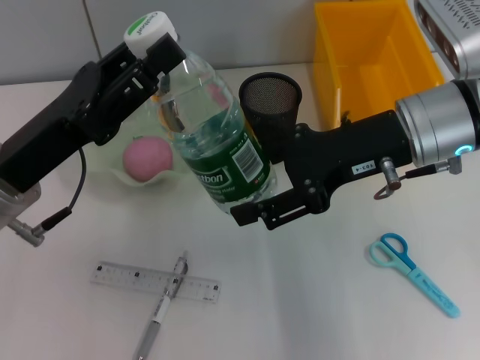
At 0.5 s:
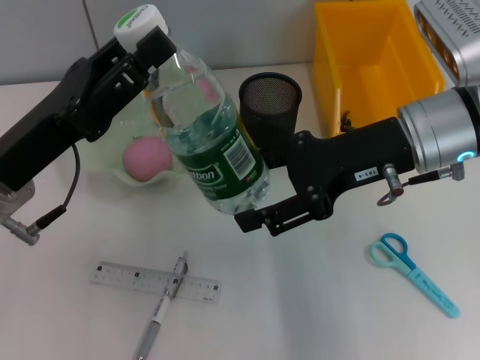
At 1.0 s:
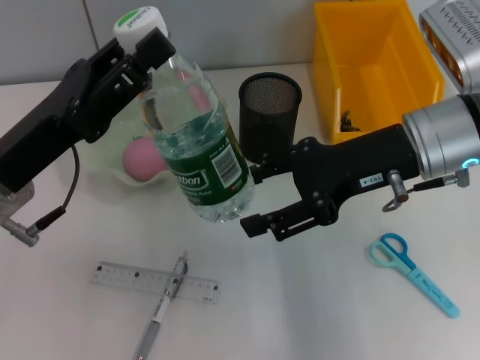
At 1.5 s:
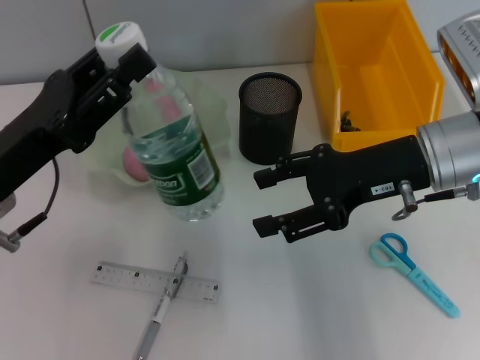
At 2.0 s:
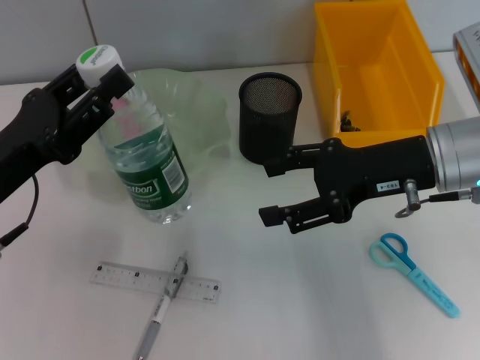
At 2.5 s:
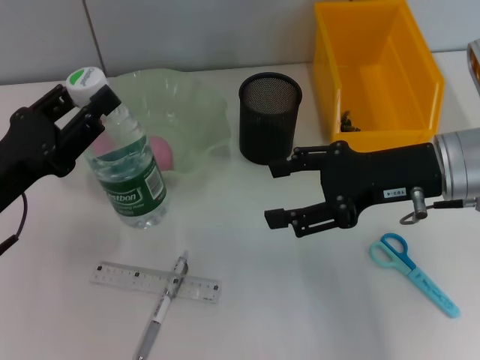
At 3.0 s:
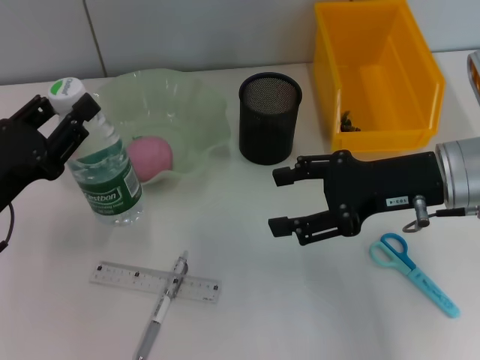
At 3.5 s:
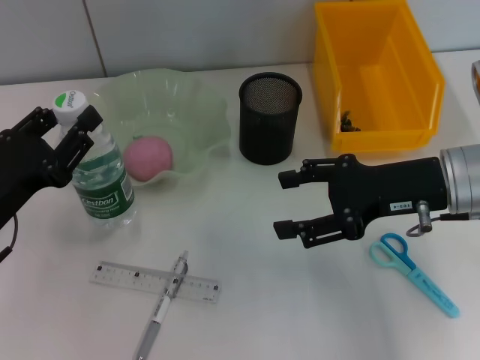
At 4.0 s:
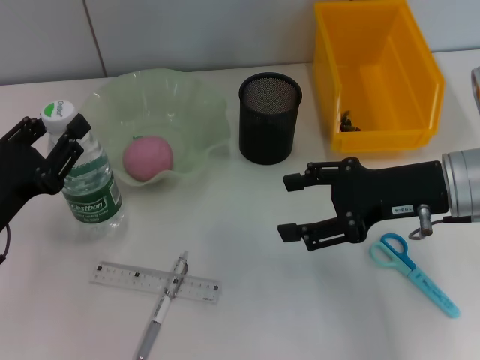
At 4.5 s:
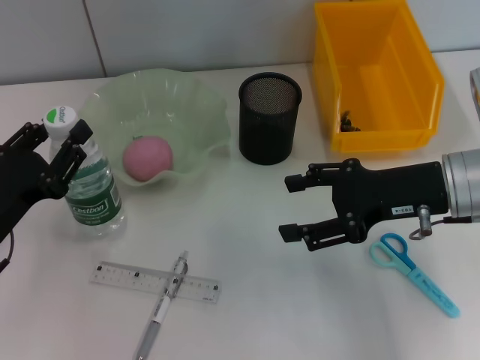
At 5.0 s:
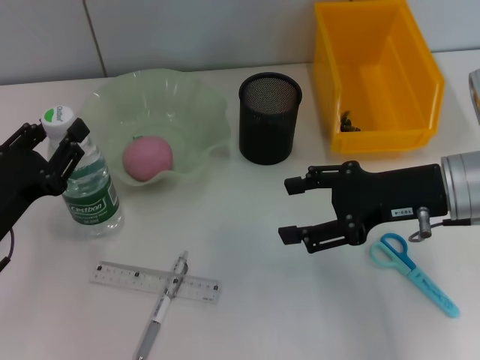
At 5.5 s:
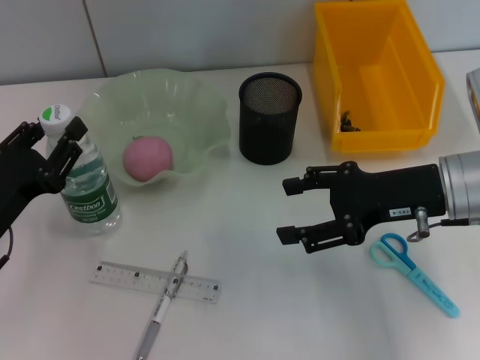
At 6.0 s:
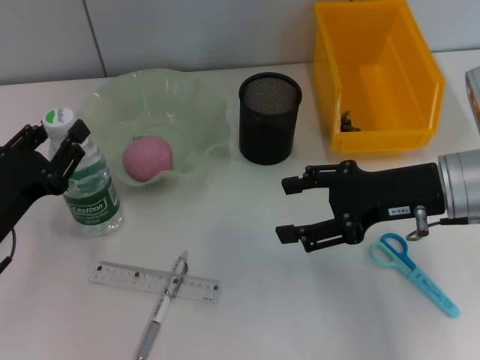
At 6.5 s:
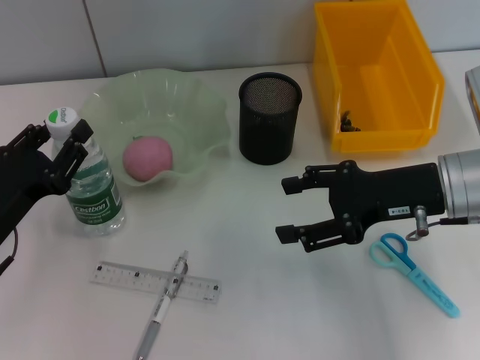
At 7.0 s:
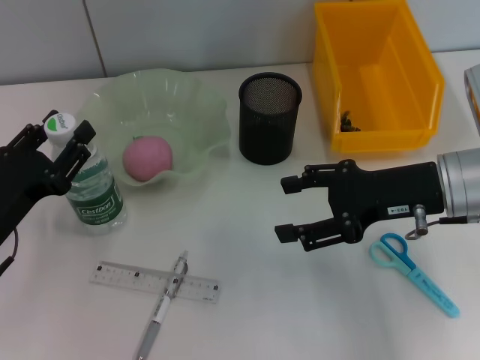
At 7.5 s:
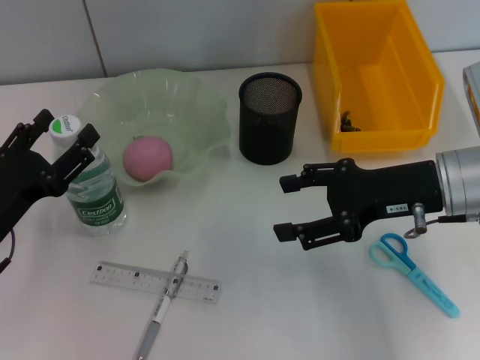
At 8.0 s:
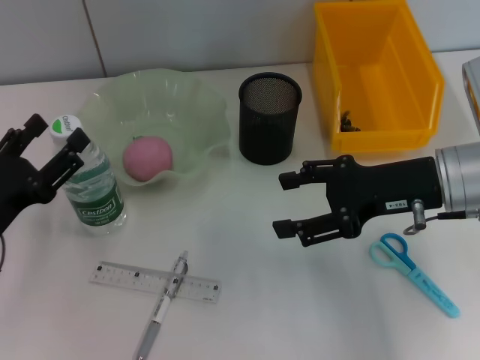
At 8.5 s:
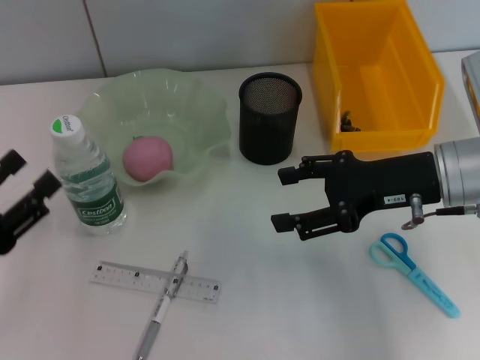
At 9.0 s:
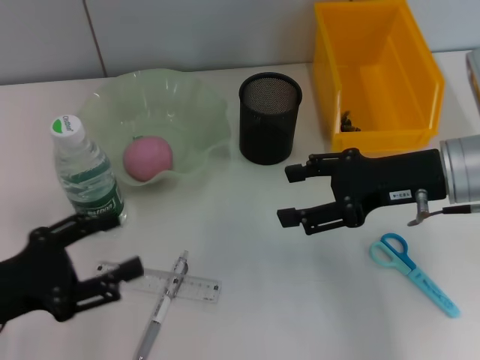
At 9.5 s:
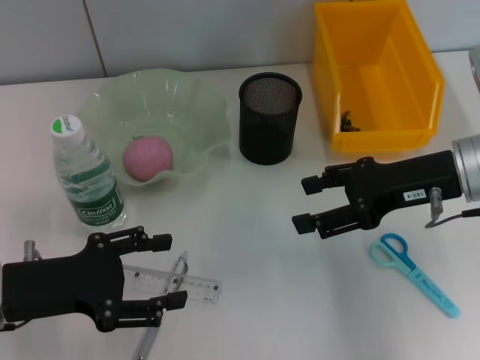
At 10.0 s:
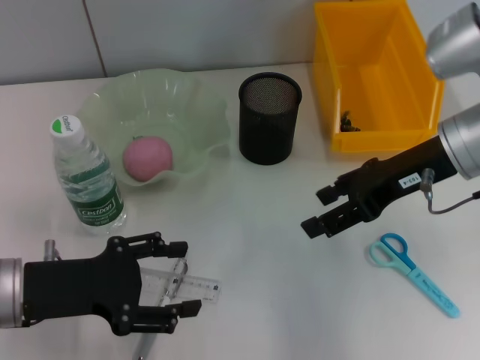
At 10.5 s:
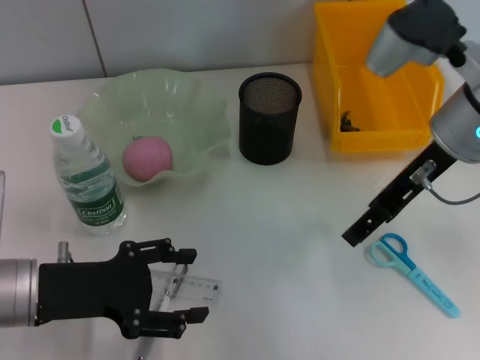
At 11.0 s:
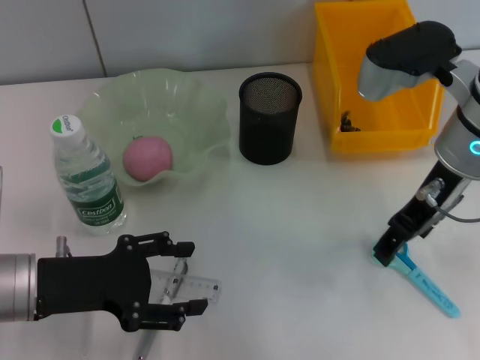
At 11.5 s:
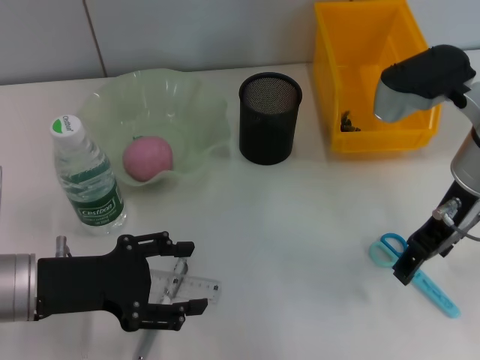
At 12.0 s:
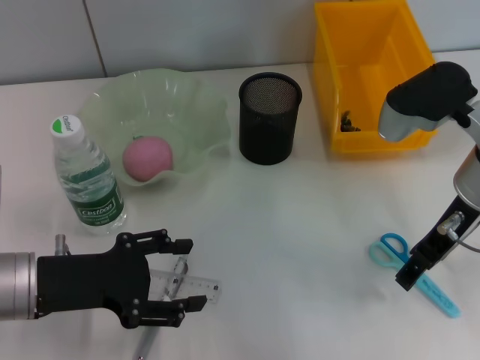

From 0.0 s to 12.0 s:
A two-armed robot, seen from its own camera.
Step, from 0.0 s to 7.0 s: Place the water bottle on the table with the left hand.
From 2.0 s to 4.0 s: The left gripper heads downward, covering some 5 cm.
From 4.0 s to 6.0 s: The grippers move only a little.
From 6.0 s to 8.0 s: The left gripper opens up.
From 8.0 s to 10.0 s: The right gripper changes place by about 5 cm.

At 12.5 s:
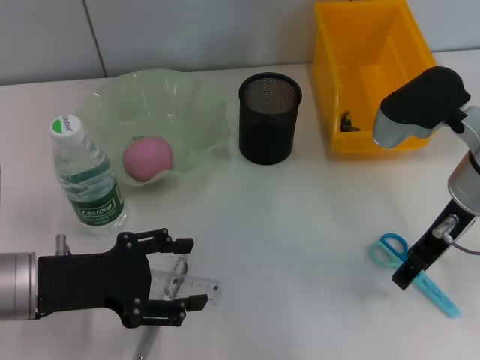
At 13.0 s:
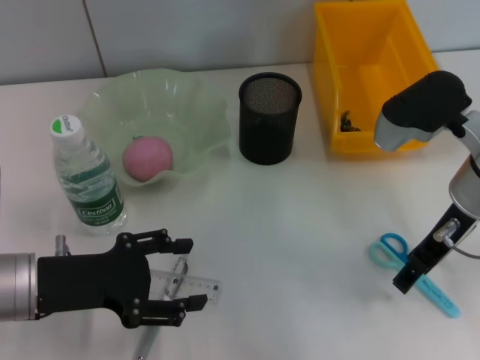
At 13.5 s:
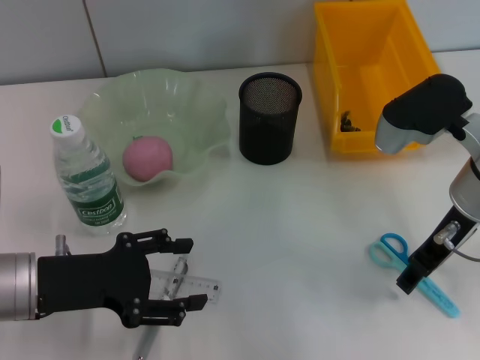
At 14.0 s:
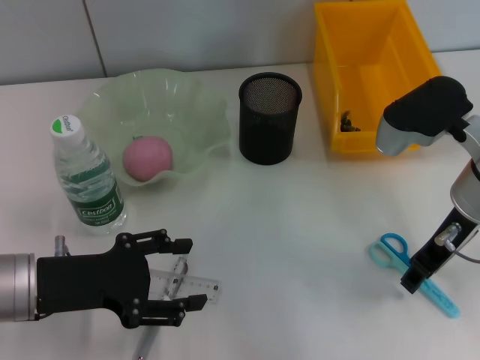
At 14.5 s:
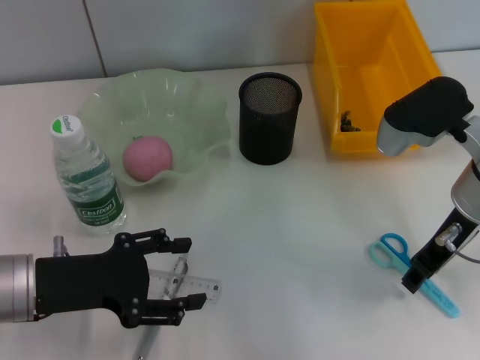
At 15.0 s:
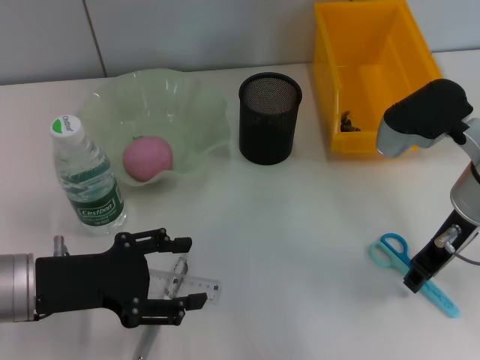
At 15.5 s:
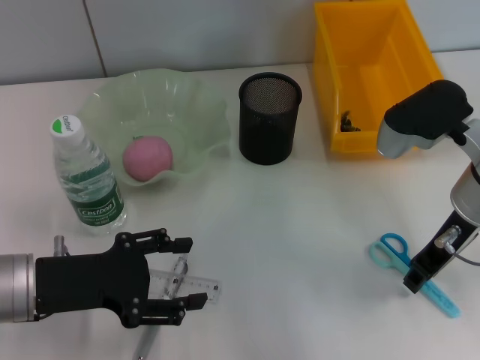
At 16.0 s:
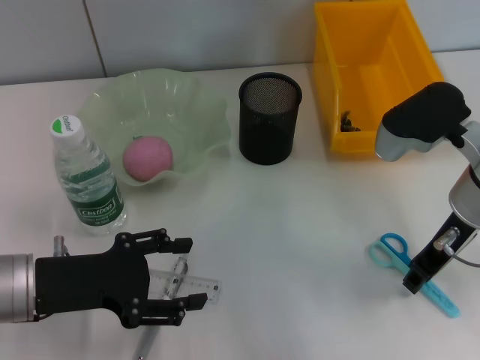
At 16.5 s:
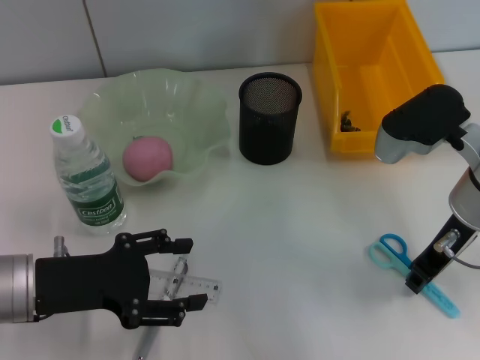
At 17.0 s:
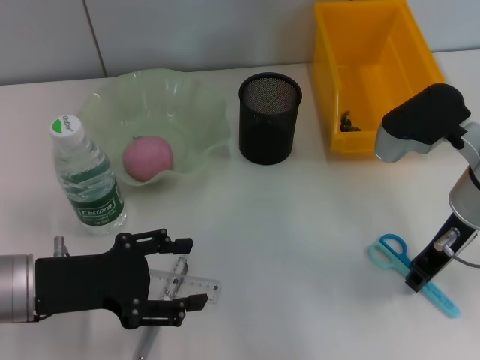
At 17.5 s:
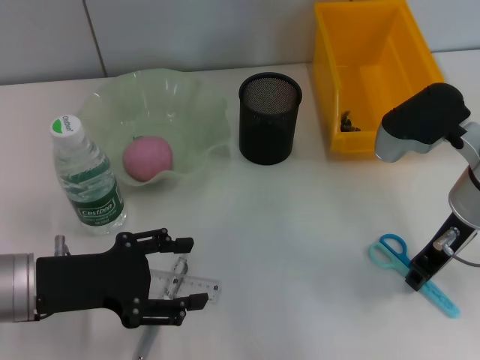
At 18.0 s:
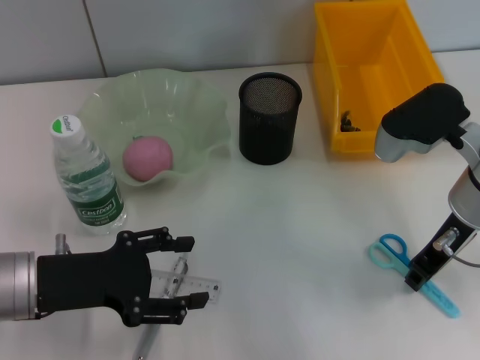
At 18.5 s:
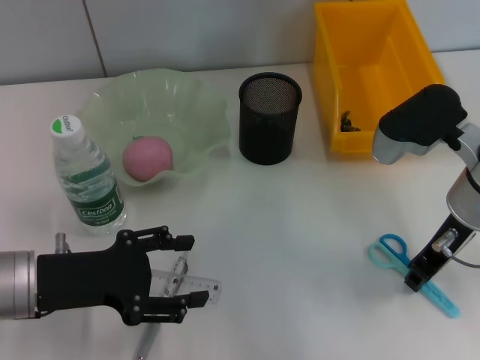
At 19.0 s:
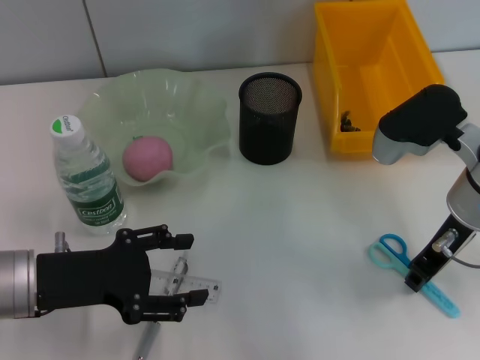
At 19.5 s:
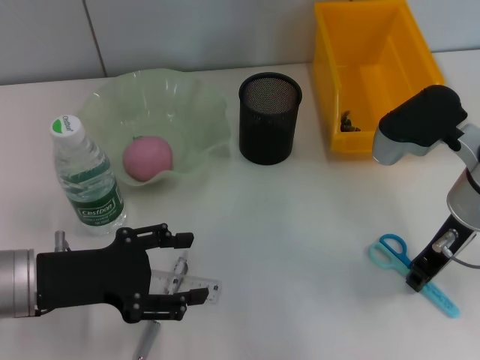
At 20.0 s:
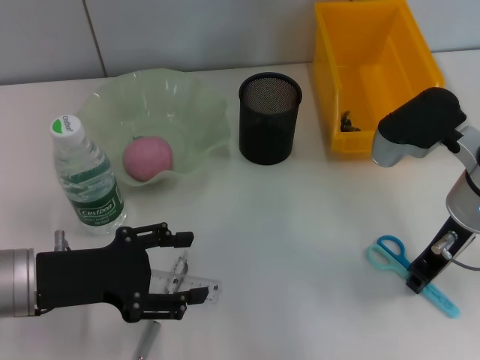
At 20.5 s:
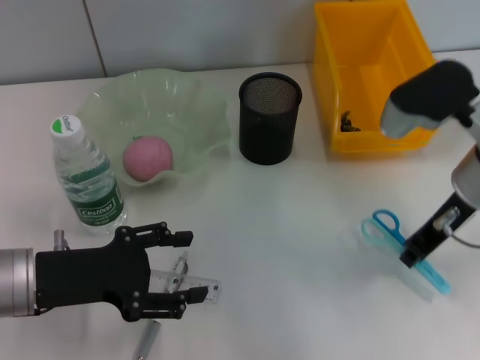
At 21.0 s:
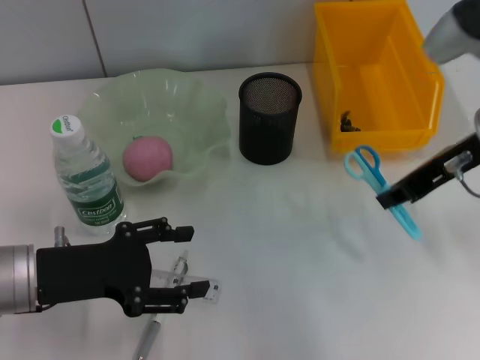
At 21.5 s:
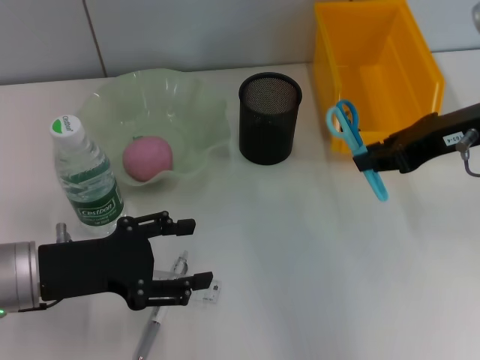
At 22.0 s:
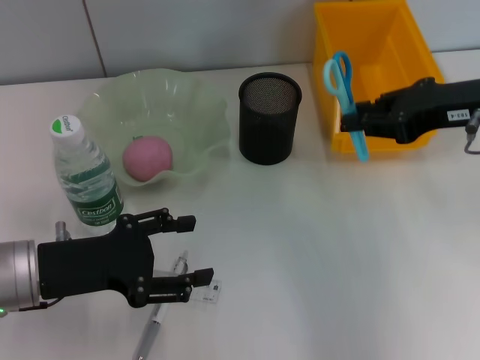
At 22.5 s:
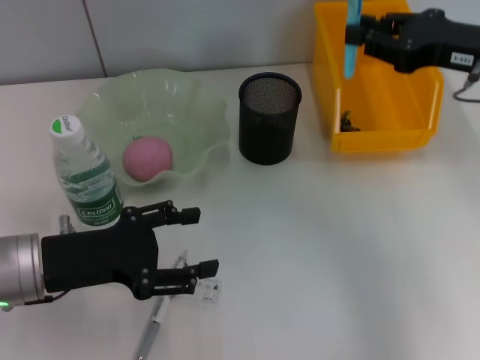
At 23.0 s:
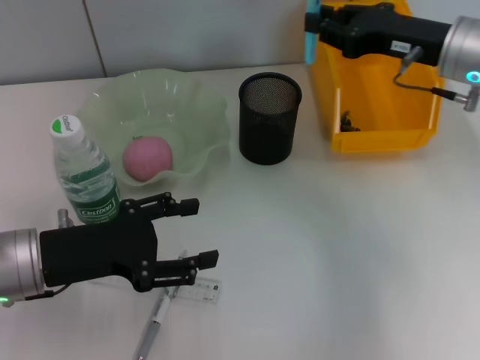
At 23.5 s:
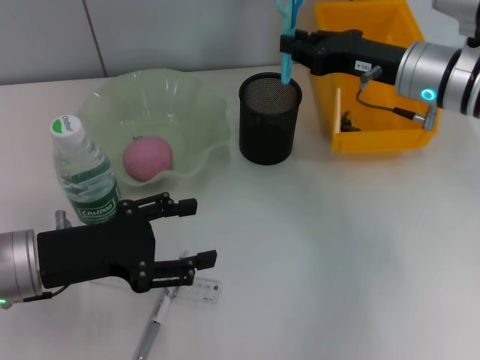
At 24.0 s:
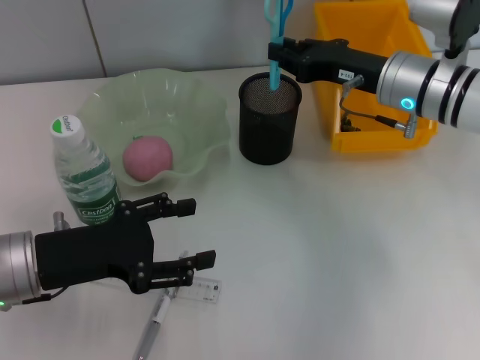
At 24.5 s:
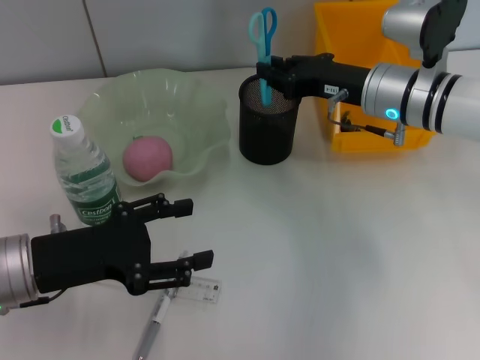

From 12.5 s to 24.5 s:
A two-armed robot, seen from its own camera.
Step, from 12.5 s to 20.0 s: Grab the blue scissors with the right hand.
From 12.5 s to 14.5 s: The right gripper closes up.
From 14.5 s to 18.5 s: The two grippers keep their place.
From 18.5 s to 20.5 s: The grippers stay close to where they were, moving slightly.
From 20.5 s to 22.5 s: The right gripper moves to the right, some 5 cm.
From 22.5 s to 24.5 s: The right gripper goes roughly 15 cm to the left, downward and forward.

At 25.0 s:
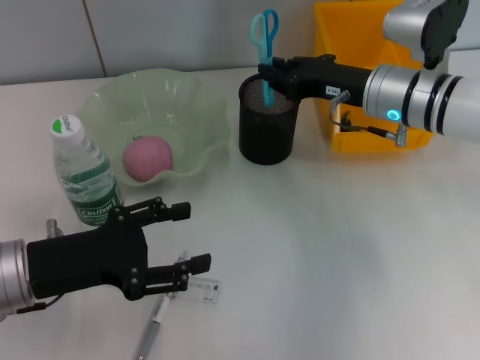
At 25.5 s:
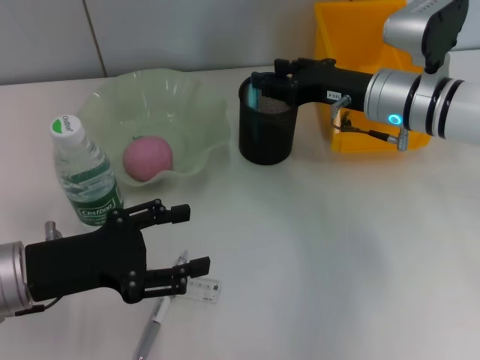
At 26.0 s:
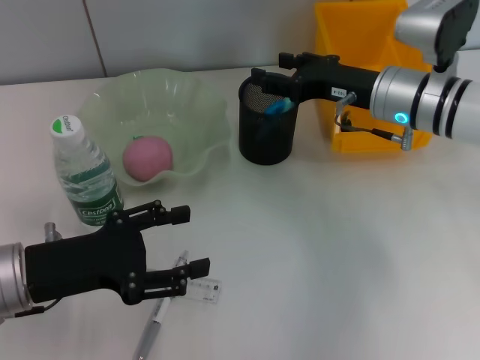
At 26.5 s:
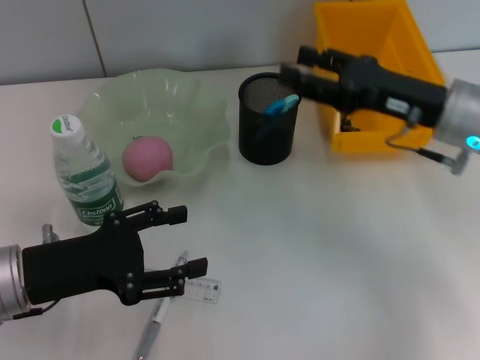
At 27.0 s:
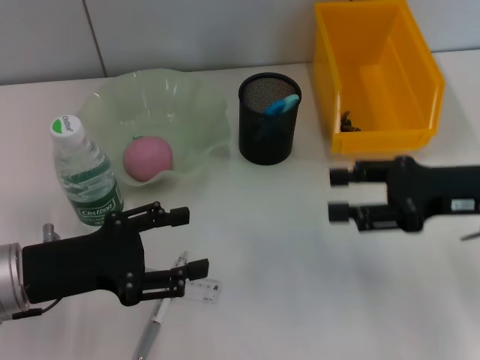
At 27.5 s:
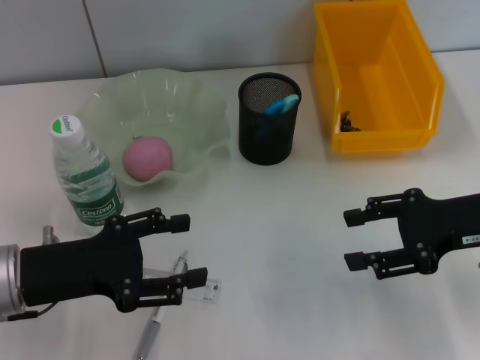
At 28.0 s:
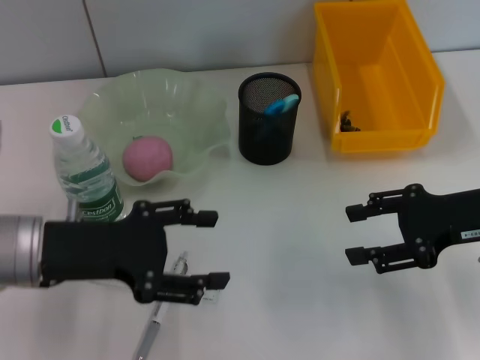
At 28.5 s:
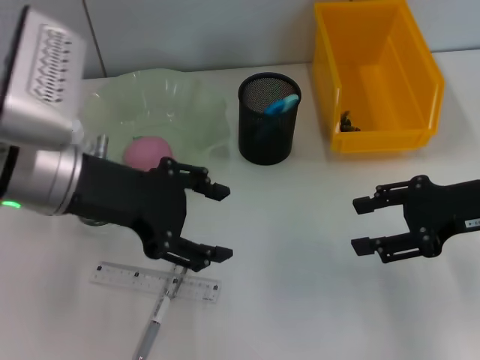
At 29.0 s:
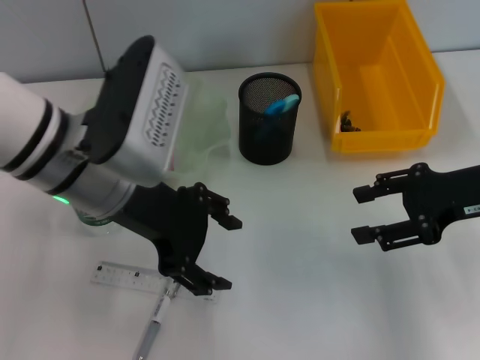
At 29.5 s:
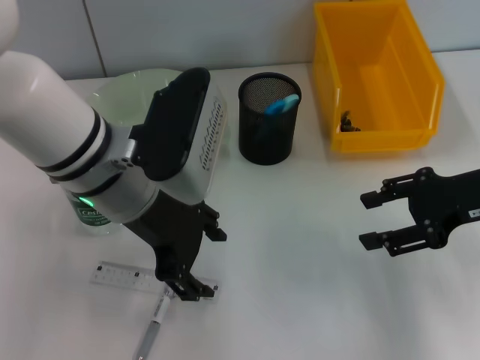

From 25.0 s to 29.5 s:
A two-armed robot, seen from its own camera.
From 25.0 s to 27.0 s: The right gripper travels backward and to the right by approximately 15 cm, and opens up.
From 27.0 s to 29.5 s: The left gripper is displaced to the right, upward and forward by roughly 15 cm.
